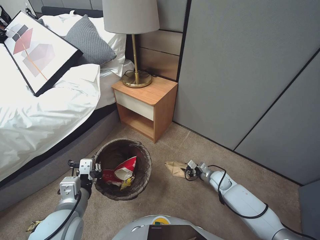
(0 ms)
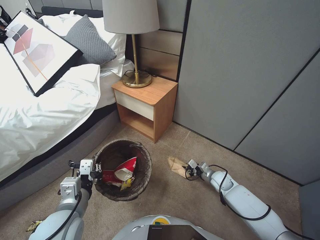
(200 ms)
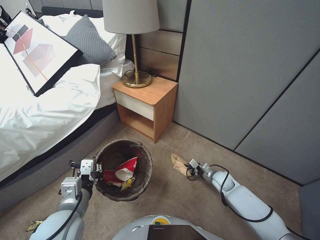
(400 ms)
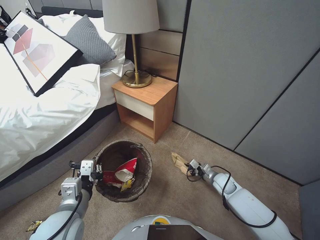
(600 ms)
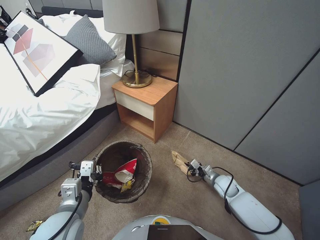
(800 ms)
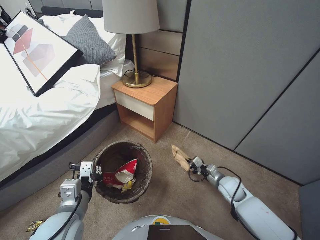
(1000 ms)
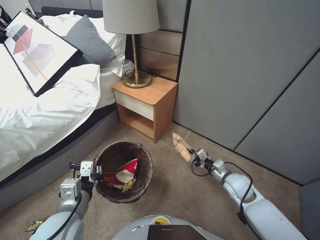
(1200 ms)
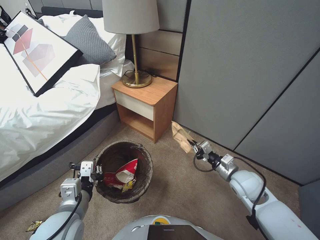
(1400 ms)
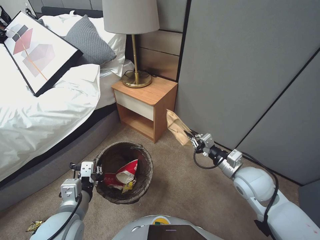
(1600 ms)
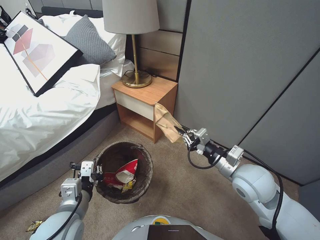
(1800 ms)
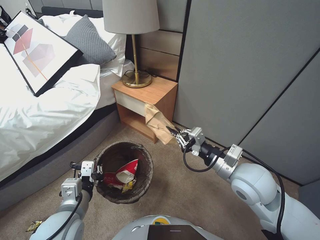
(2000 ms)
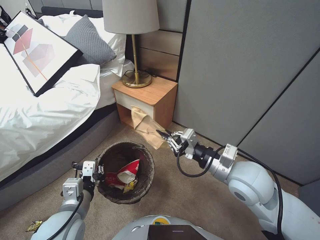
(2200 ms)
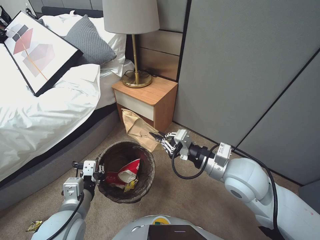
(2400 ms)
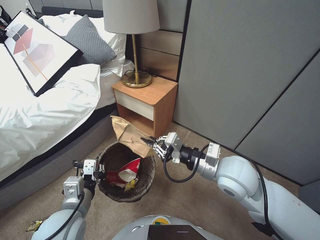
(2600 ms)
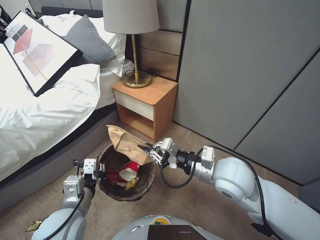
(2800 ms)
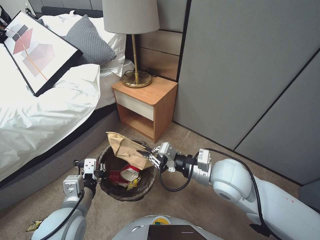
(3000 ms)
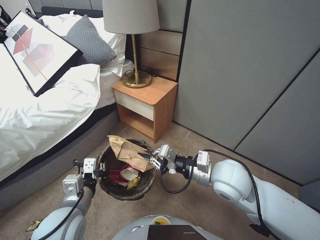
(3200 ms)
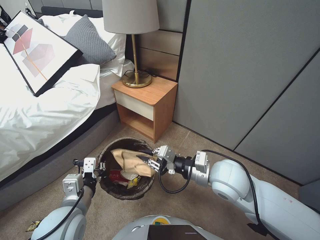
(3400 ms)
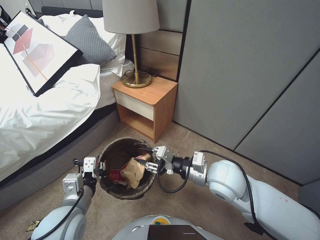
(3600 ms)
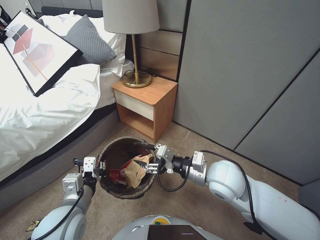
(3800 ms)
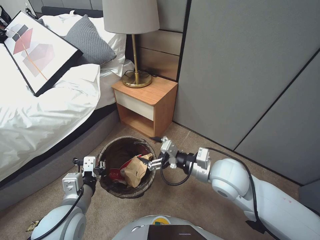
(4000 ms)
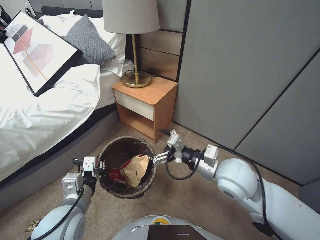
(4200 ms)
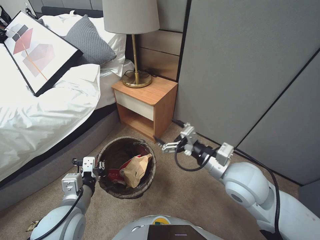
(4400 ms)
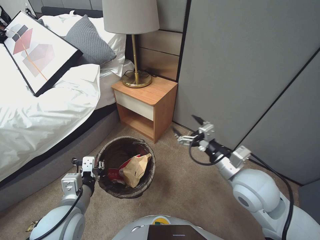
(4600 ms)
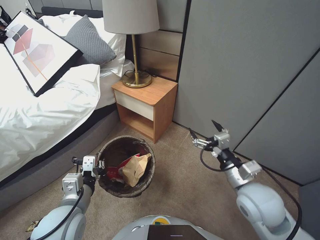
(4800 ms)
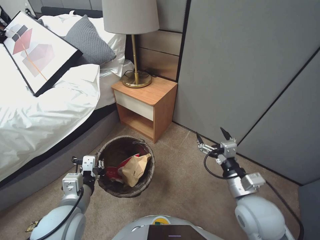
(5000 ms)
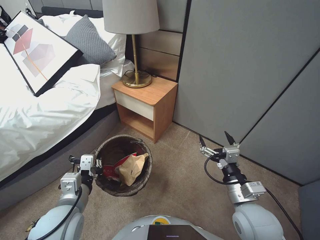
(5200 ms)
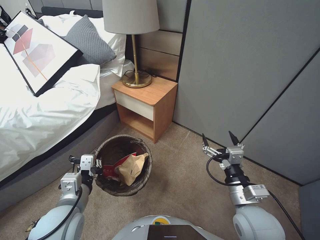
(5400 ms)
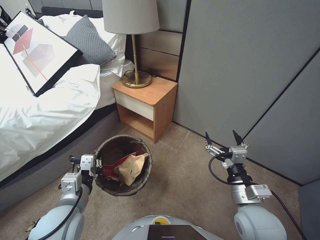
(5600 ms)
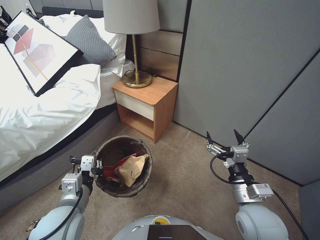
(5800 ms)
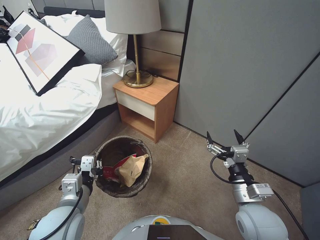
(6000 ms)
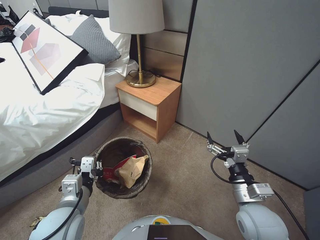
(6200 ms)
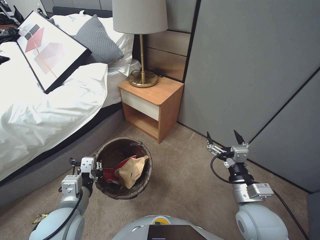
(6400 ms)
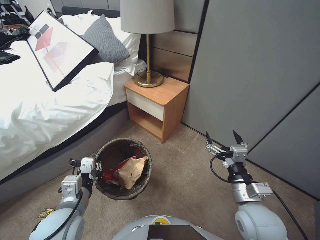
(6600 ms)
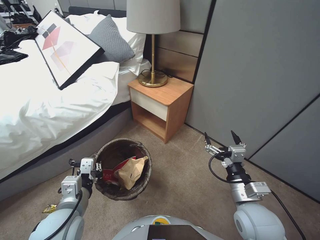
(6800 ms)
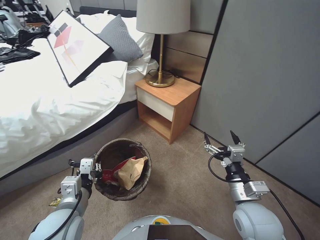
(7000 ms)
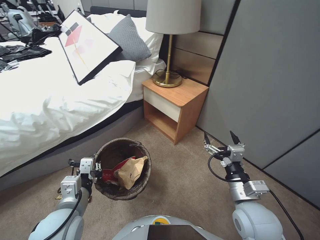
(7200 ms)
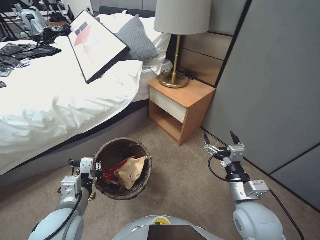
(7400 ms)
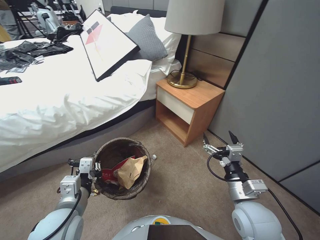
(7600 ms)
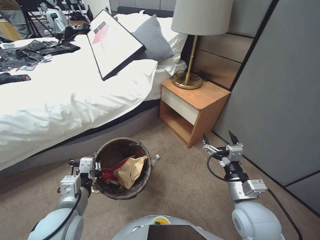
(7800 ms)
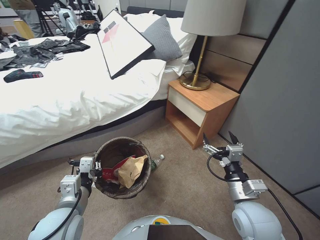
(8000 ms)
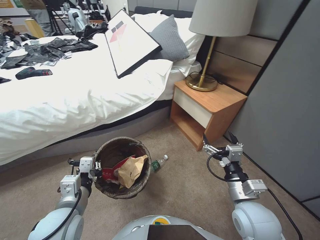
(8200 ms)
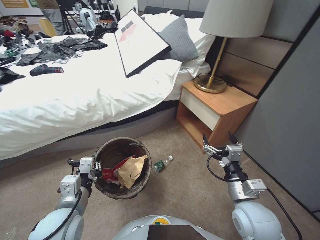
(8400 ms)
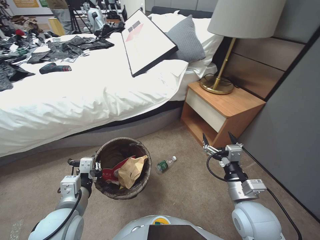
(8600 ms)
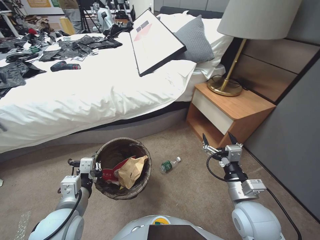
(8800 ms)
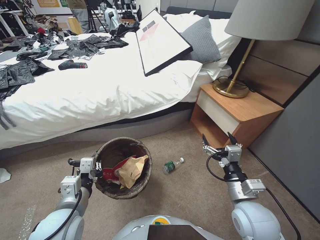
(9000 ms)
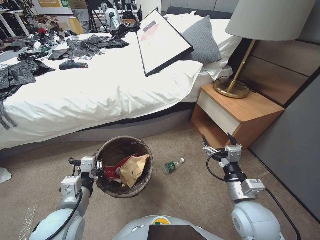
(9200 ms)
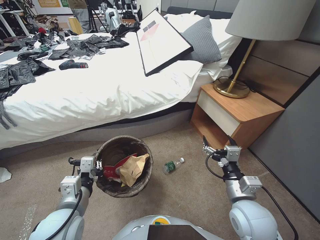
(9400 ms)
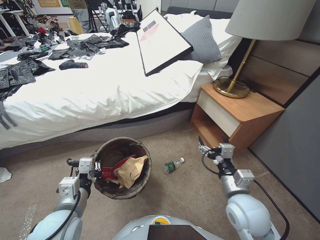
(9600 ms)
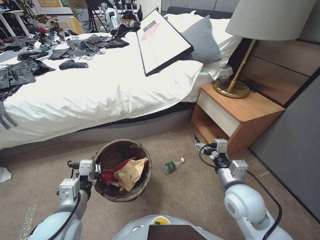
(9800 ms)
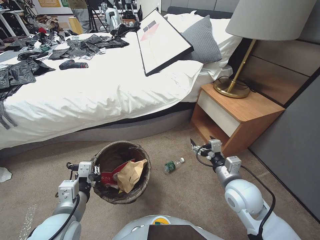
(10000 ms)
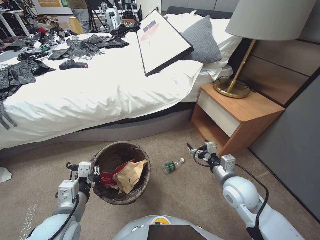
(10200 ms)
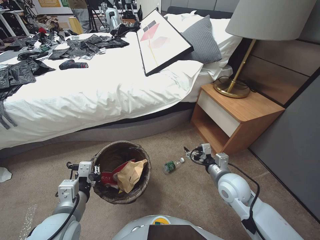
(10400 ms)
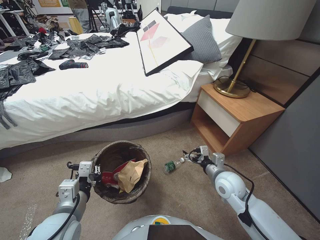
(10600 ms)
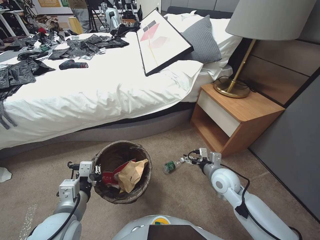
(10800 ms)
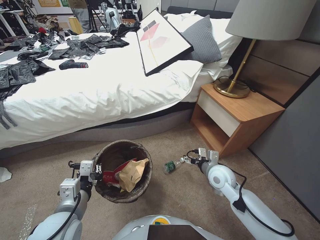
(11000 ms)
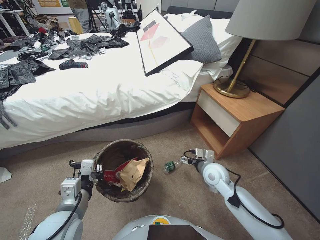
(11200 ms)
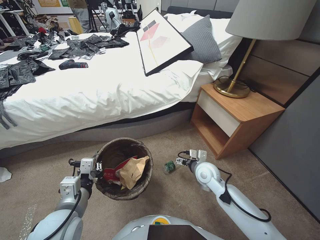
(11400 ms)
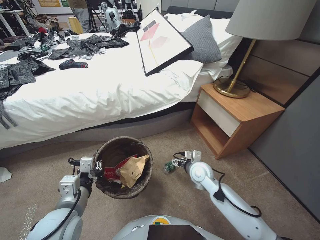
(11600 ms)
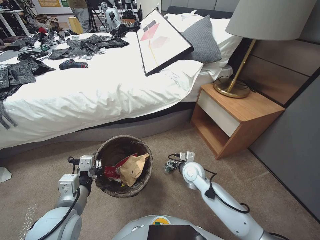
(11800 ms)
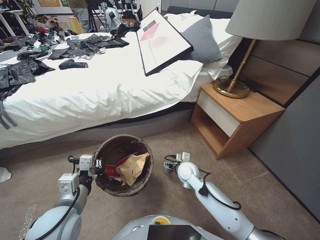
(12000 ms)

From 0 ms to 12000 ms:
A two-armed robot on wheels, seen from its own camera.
Task of the whole recording: Pick up the trash bin, then pick up the garbage from the floor and place it into the trash bin.
From 0 ms to 1600 ms: The right gripper moves upward, roughly 25 cm, and closes.
From 1600 ms to 3000 ms: The right gripper heads to the left and upward, covering approximately 15 cm.
From 3000 ms to 4400 ms: The right gripper opens.
From 4400 ms to 6000 ms: The right gripper shifts about 15 cm backward, downward and to the right.
From 9000 ms to 10400 ms: The right gripper heads forward, covering some 10 cm.
From 10400 ms to 12000 ms: The right gripper shifts approximately 15 cm to the left, forward and downward.

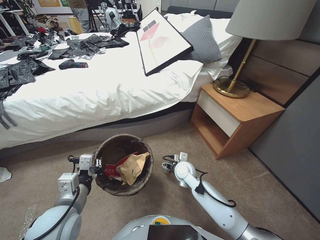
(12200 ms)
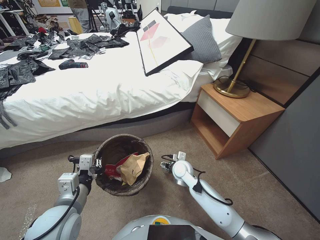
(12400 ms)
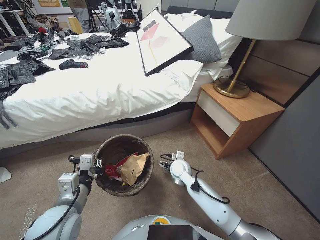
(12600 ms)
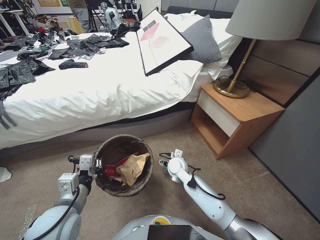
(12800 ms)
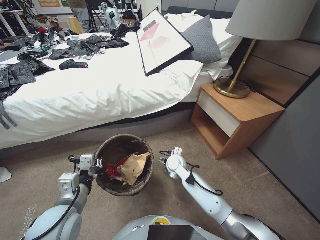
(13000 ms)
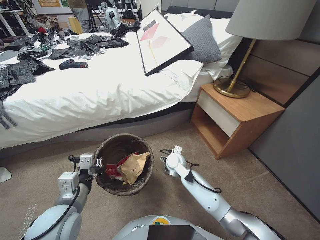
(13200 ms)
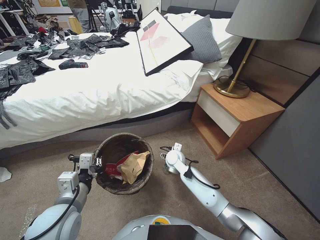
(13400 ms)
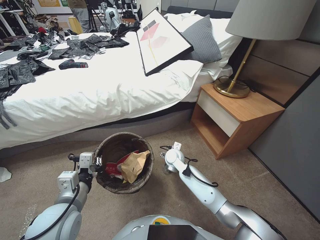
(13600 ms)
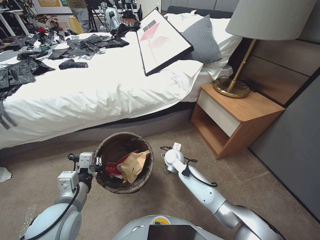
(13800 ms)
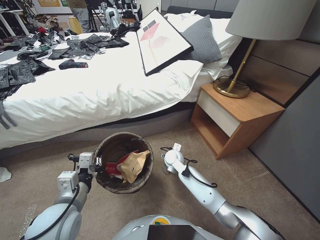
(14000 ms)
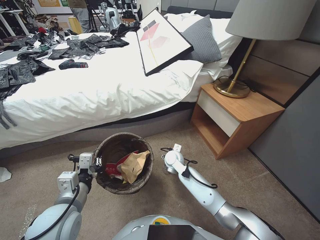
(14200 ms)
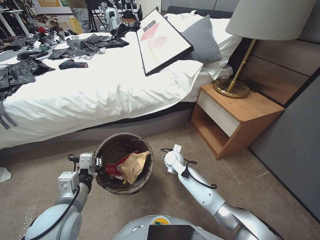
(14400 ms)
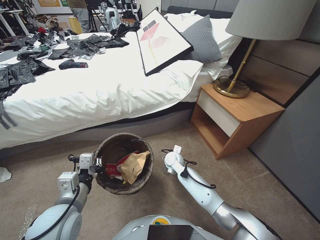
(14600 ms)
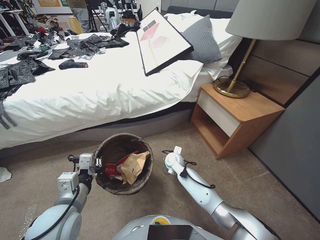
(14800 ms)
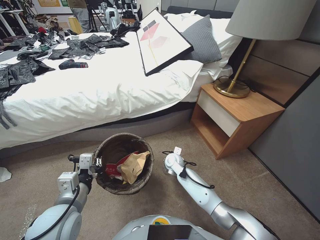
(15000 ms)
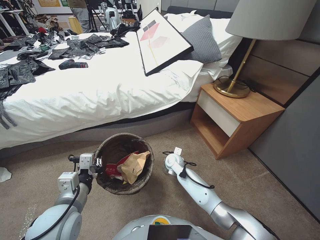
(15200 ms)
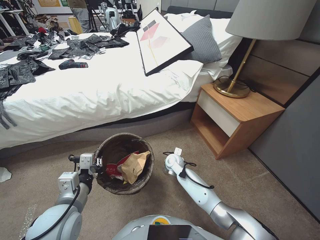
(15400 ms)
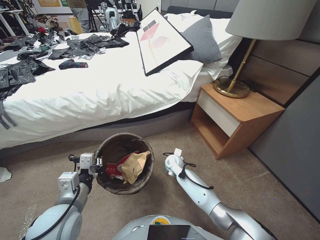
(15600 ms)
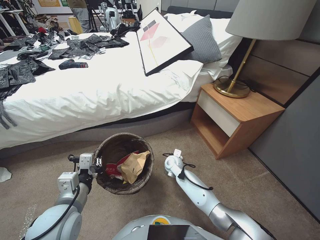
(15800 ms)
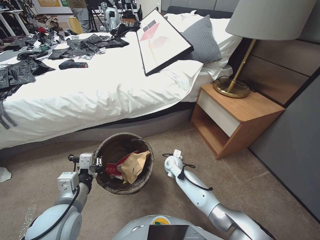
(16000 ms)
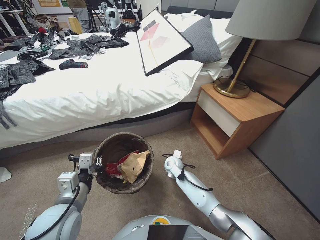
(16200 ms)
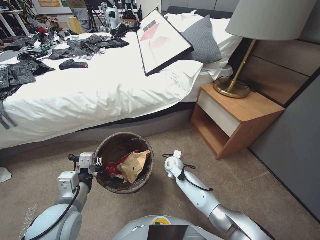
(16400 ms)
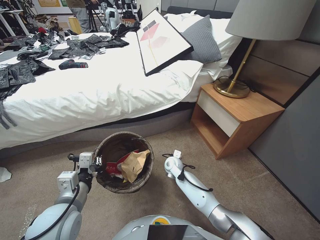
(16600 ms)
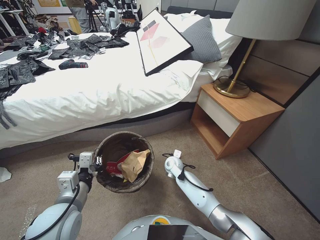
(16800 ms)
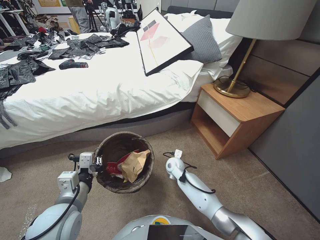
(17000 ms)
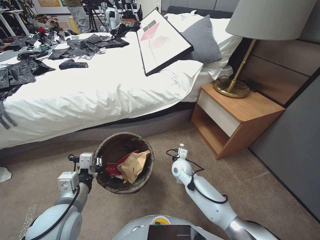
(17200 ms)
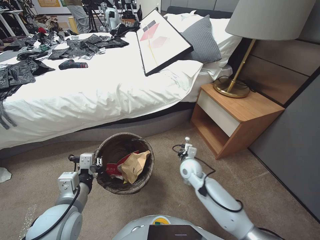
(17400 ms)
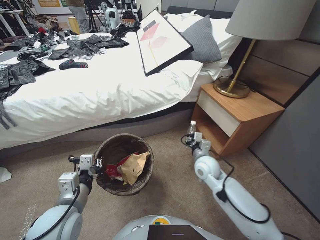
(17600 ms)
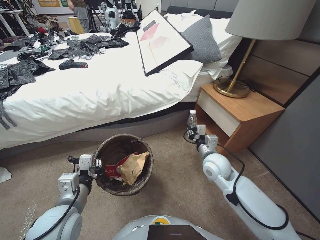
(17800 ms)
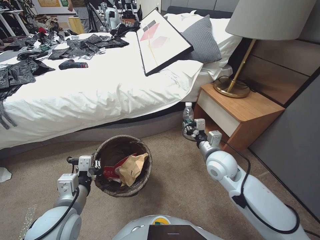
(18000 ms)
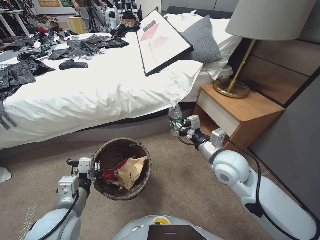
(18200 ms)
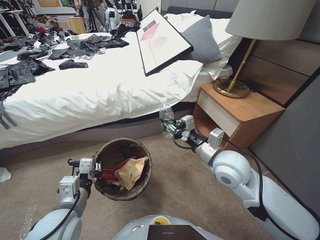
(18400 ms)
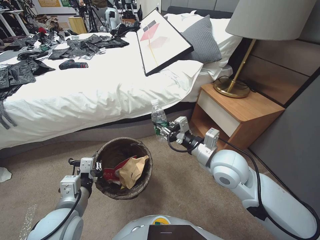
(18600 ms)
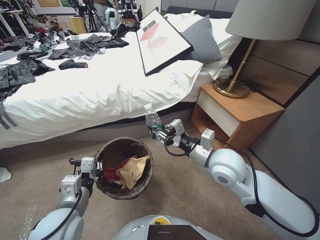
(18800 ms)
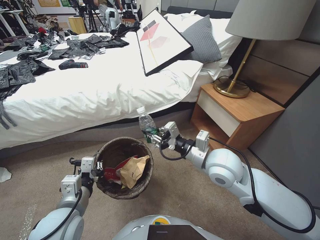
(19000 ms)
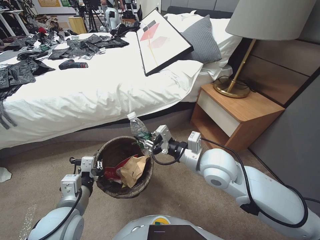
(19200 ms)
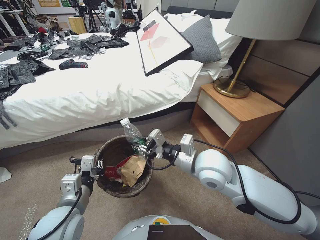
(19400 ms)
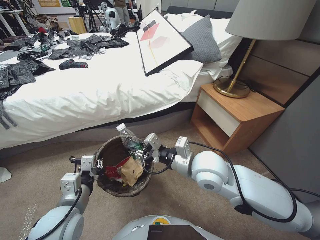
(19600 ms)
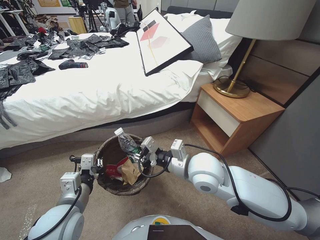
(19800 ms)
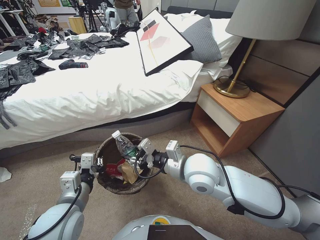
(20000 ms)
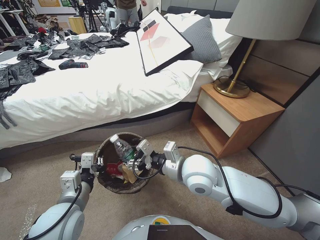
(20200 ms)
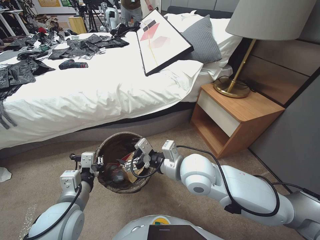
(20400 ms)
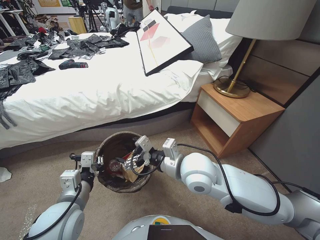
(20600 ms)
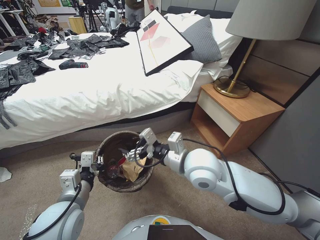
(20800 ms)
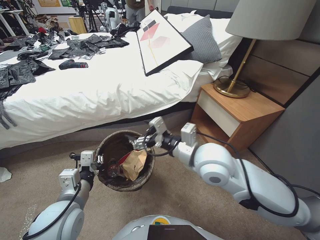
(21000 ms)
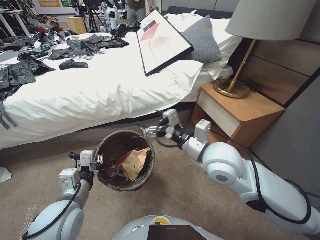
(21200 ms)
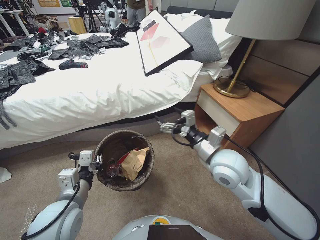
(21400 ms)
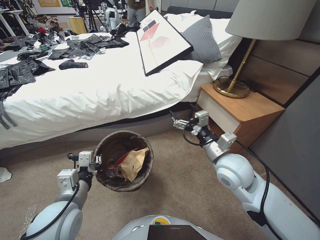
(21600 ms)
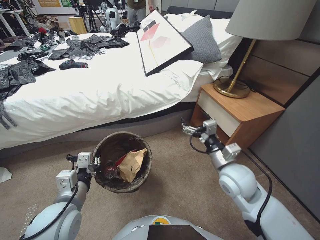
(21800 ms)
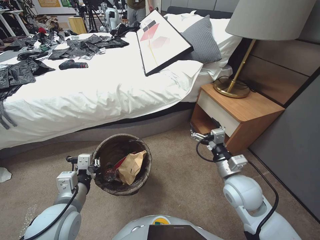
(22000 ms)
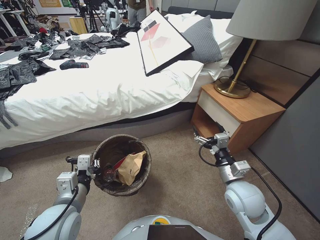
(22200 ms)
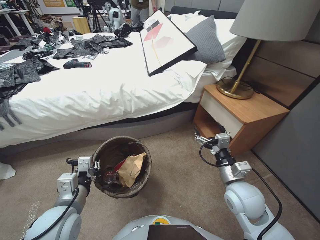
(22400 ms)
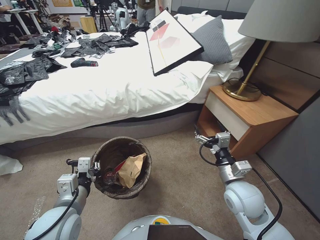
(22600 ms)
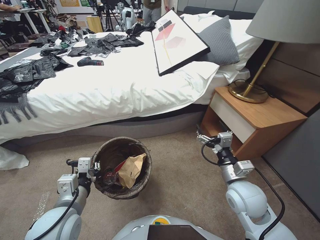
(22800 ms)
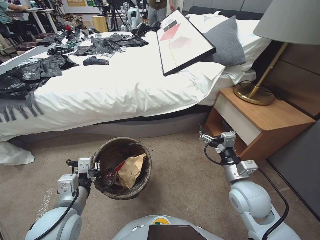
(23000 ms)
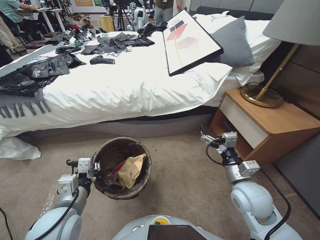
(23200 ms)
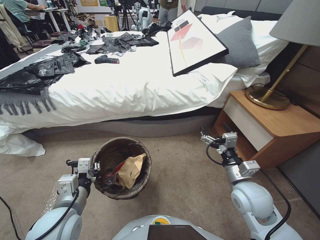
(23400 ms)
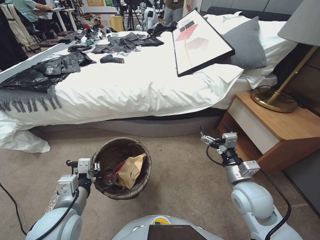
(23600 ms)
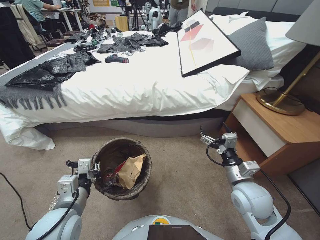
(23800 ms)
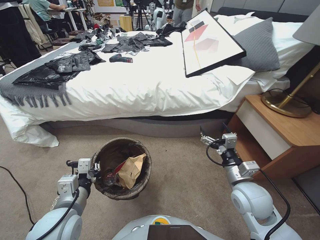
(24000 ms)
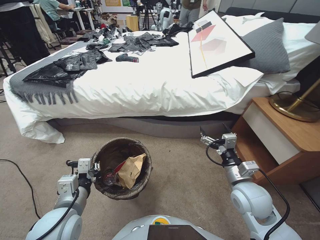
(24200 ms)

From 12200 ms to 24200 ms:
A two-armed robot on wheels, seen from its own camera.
Task of the whole recording: Pick up the trash bin, then pick up the garbage from the floor and place it into the trash bin.
From 12200 ms to 13800 ms: The right gripper shifts some 10 cm forward and to the left.
From 13800 ms to 15200 ms: The grippers make only small movements.
From 15200 ms to 16600 ms: The right gripper closes.
From 16600 ms to 18200 ms: The right gripper travels upward, to the right and backward by some 30 cm.
From 18200 ms to 19800 ms: The right gripper is displaced to the left by some 10 cm.
From 19800 ms to 21200 ms: The right gripper ends up roughly 5 cm from where it was, and opens.
From 21200 ms to 22600 ms: The right gripper goes about 20 cm downward, to the right and backward.
